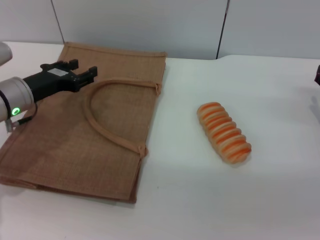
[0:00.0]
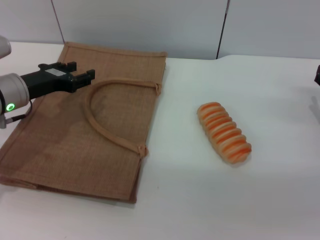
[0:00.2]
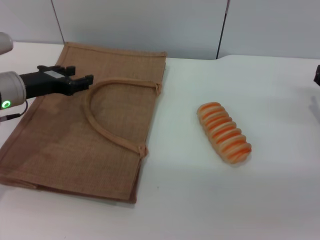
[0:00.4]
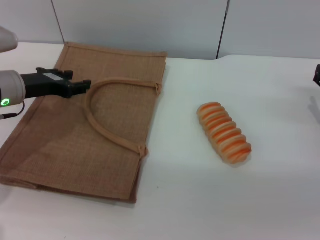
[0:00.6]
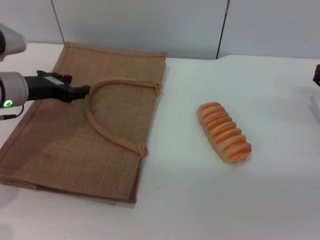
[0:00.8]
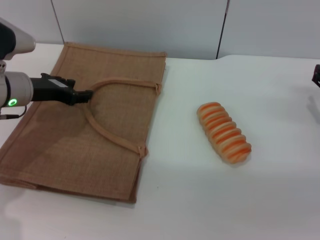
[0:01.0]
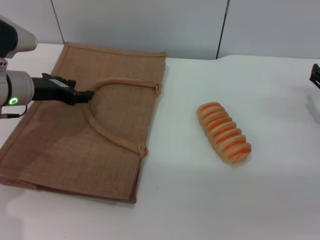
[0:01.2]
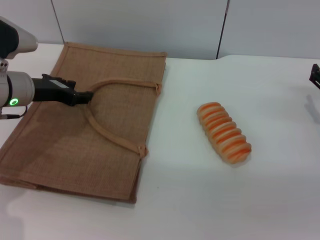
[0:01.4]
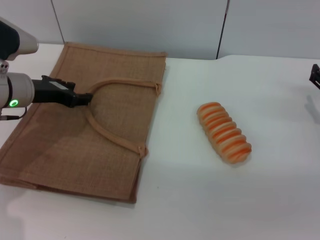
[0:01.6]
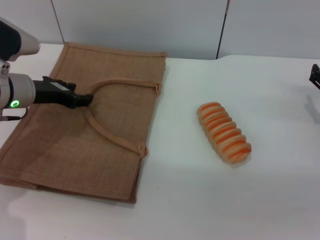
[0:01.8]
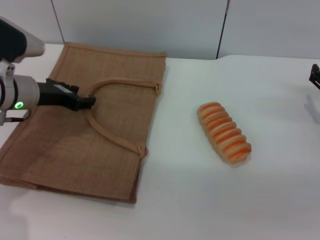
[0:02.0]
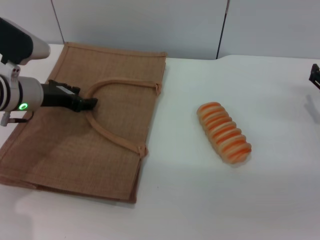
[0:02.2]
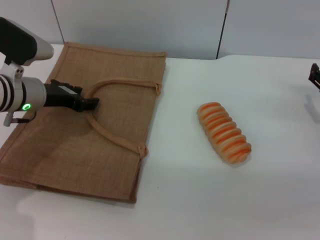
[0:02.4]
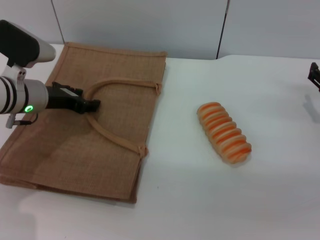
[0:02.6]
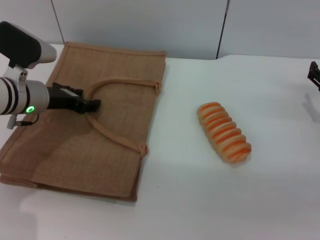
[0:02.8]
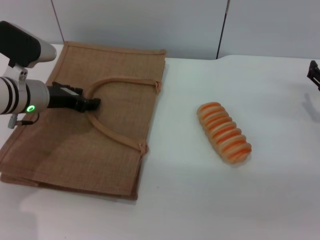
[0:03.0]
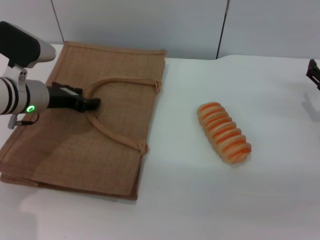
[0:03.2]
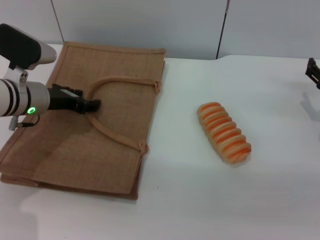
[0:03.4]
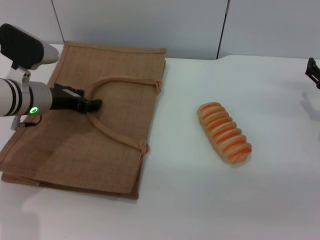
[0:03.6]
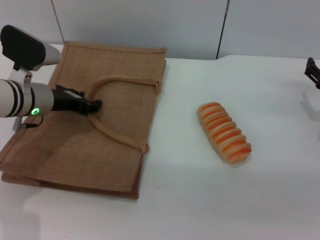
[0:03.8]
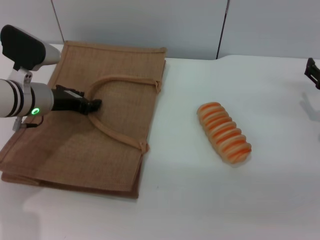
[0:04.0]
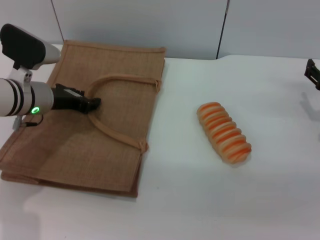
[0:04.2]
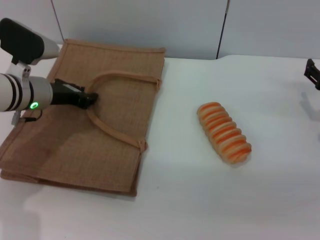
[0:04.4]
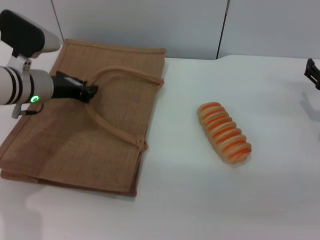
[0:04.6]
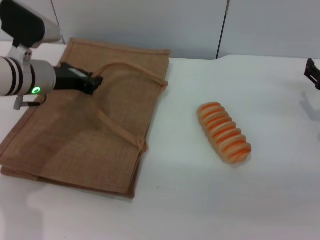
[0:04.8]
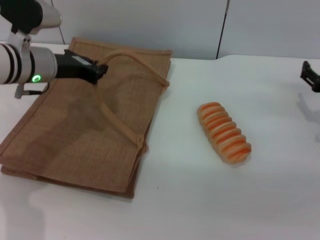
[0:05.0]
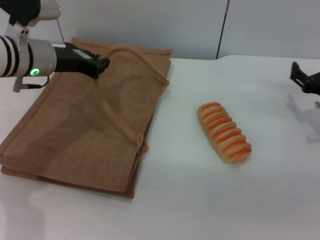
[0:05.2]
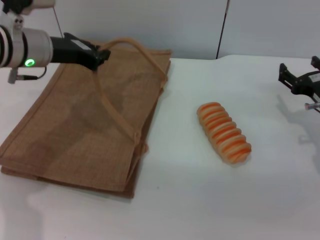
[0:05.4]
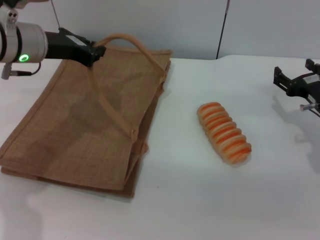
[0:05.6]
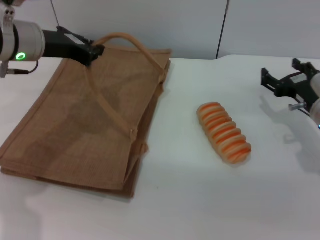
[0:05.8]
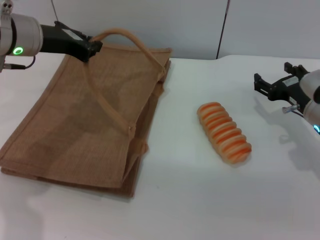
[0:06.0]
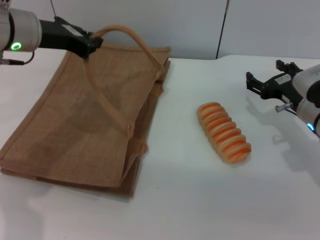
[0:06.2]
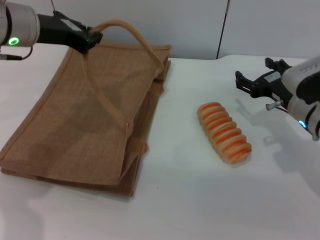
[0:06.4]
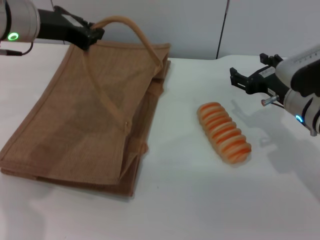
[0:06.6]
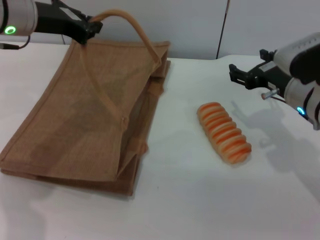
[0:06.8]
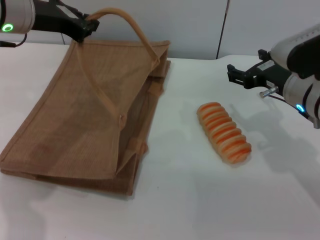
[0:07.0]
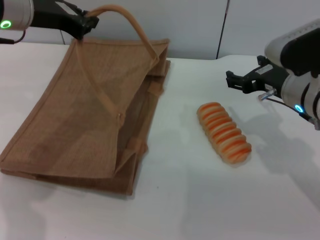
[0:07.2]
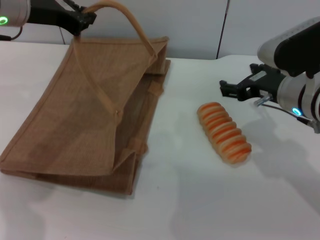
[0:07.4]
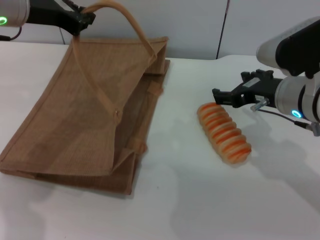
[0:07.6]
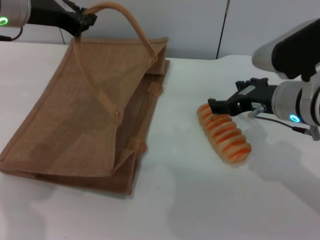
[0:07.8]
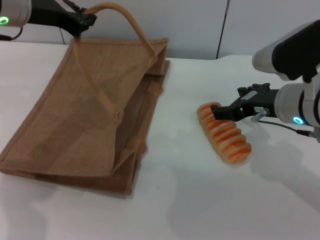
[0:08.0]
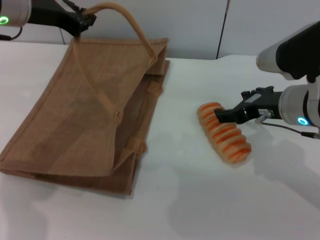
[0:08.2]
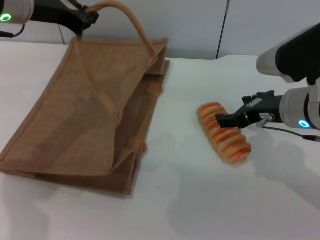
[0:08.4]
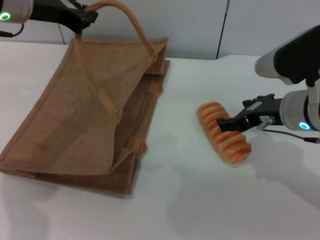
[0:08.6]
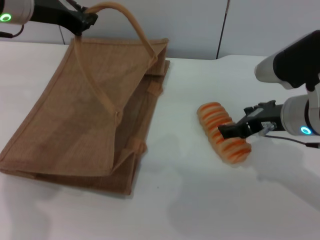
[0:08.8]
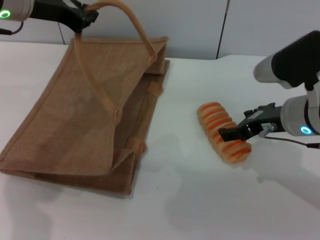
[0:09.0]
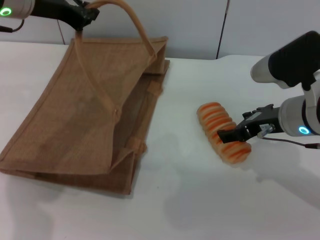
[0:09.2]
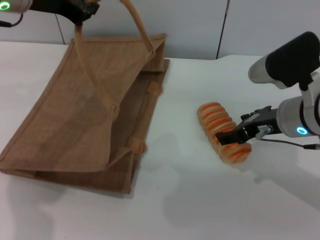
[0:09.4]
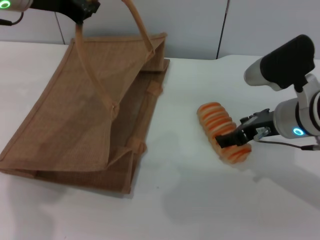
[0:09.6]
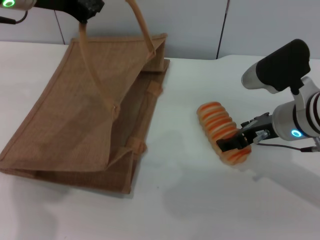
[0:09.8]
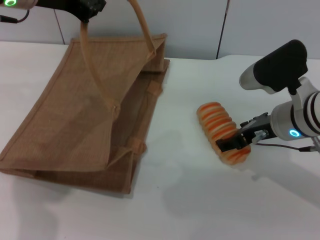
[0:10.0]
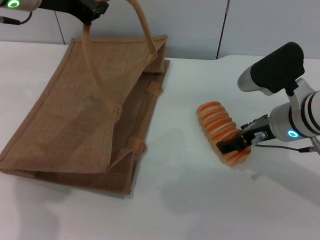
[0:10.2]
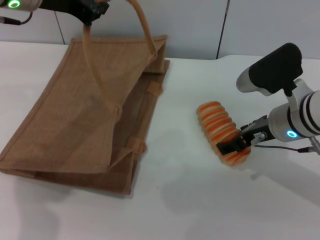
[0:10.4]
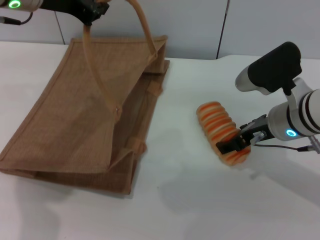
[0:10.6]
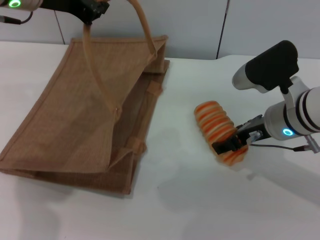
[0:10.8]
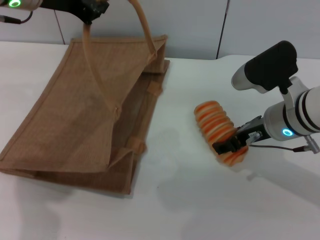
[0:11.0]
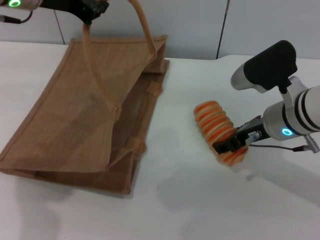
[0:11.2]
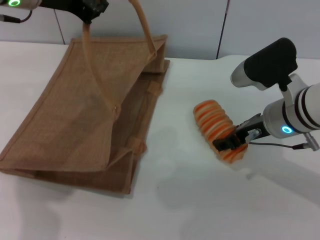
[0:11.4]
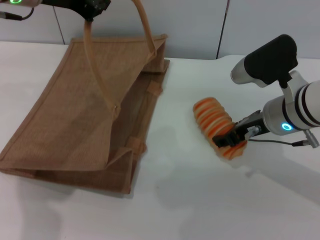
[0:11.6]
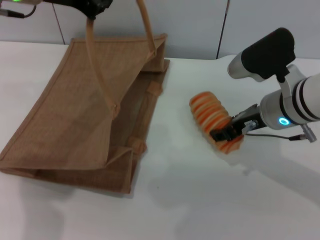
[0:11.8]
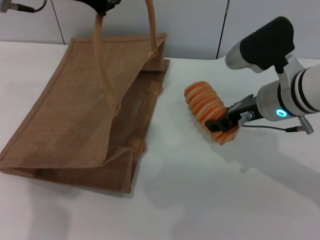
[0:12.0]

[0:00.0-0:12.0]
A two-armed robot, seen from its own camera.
Task of the whole recording: pick up the bread from the table and place it in the brown handbag.
Step, 0:00.0 to 0:04.8: Lift the woven bag with the left gripper to open it.
0:01.6 to 0:03.0: The grippers move only a little.
0:03.0 to 0:04.4: The two grippers keep their place.
0:04.4 to 0:06.0: The left gripper is displaced upward by about 10 cm, and closes up; the right gripper shifts about 5 cm to the left.
0:06.0 to 0:07.6: The right gripper heads upward and to the left, covering about 10 cm.
0:07.6 to 0:09.0: The grippers stay close to where they were, moving slightly.
0:09.0 to 0:10.4: The grippers stay close to where they were, moving slightly.
0:10.4 to 0:12.0: The right gripper closes.

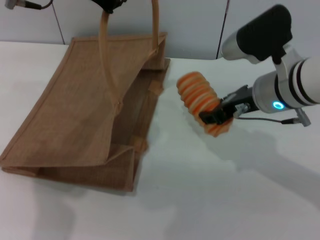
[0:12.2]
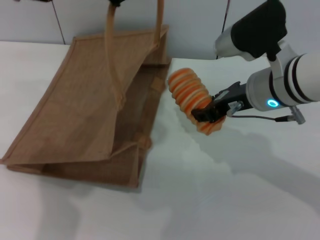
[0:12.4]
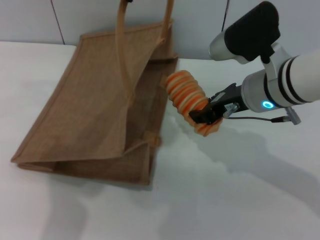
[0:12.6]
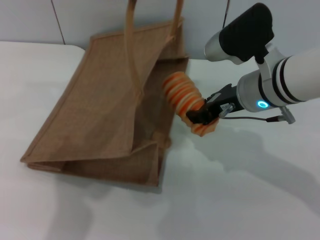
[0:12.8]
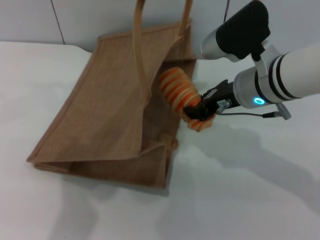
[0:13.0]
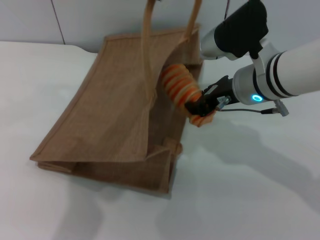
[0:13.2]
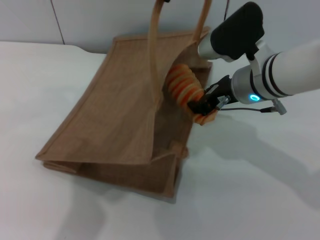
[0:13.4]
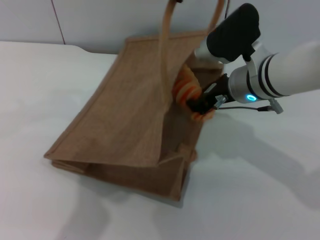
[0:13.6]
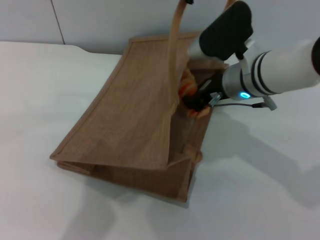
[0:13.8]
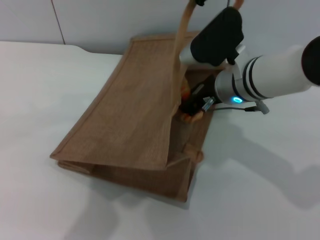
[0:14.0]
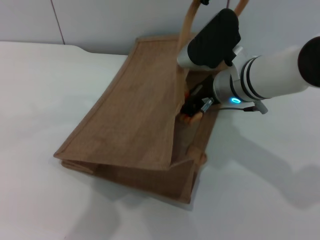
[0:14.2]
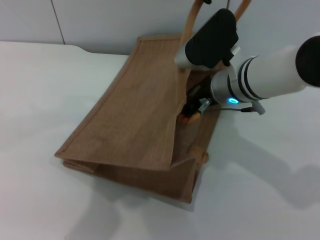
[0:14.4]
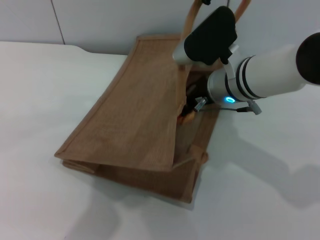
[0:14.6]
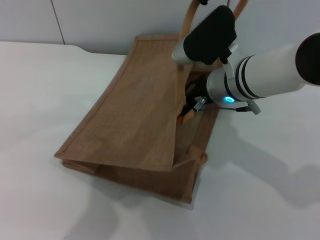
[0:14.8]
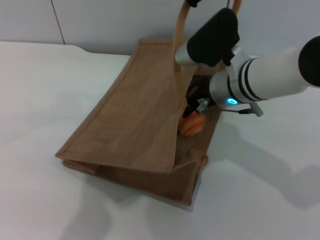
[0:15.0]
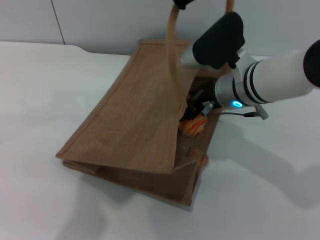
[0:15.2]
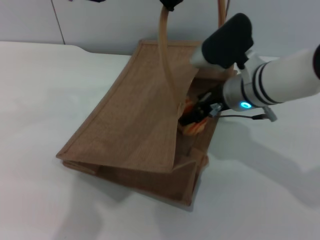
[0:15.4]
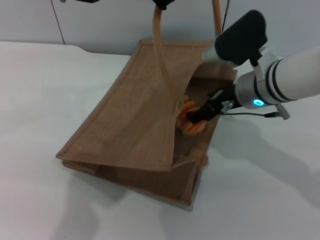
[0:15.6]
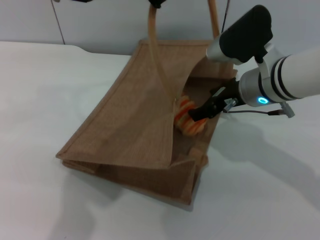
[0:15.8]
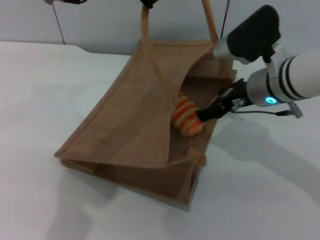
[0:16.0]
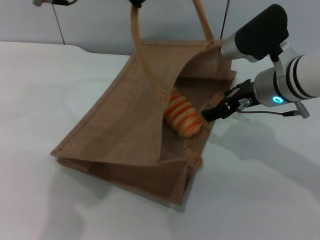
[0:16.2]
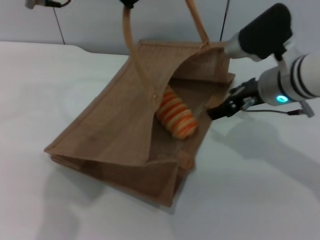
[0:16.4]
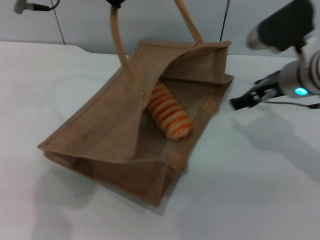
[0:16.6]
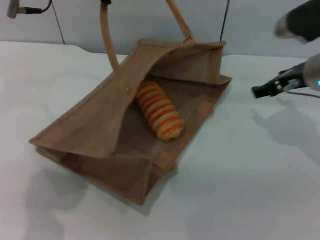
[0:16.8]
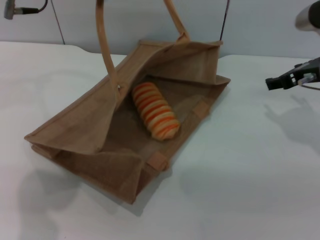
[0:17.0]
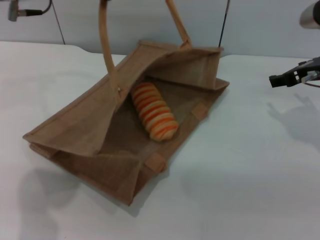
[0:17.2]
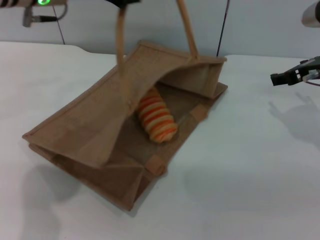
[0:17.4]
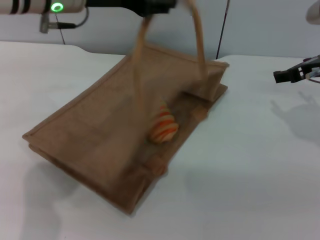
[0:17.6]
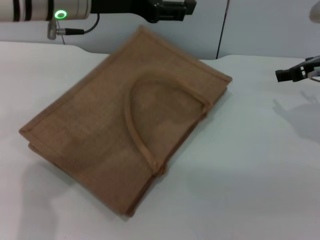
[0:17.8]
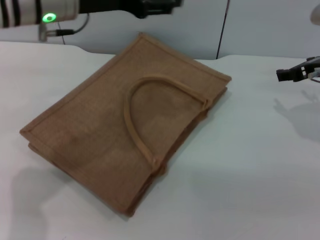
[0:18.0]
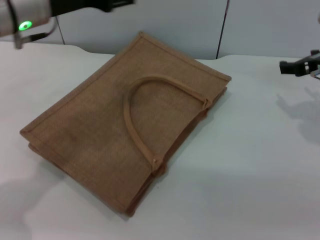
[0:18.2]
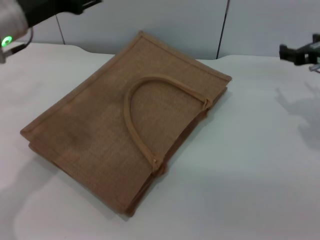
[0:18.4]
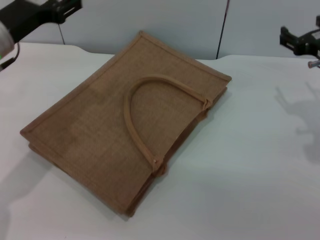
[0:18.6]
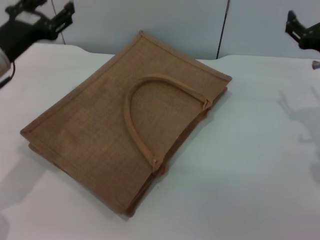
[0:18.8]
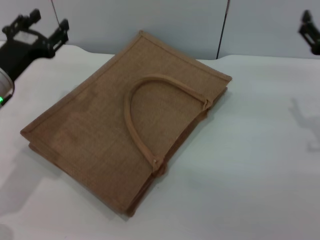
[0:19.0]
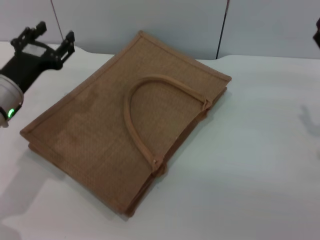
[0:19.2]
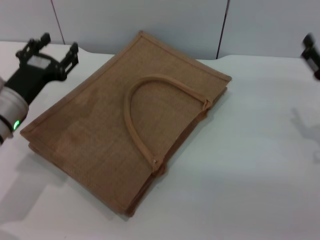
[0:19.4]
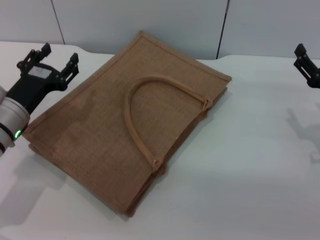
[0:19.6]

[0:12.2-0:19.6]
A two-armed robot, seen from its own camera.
Task of the whole recording: pick up the bread from the table and place it in the brown handbag.
Step, 0:12.4 to 0:16.2: Place the bread into the woven bag with the right gripper.
Step, 0:16.6 to 0:17.8: Lower the woven bag with the left gripper to close it.
0:12.2 to 0:13.6: The left gripper travels to the right by some 10 cm.
0:13.6 to 0:15.2: The right gripper opens.
0:15.2 to 0:16.6: The right gripper heads to the right, covering roughly 10 cm; the left gripper travels to the left by some 10 cm.
0:16.6 to 0:18.2: The right gripper goes approximately 10 cm to the right. Meanwhile the left gripper heads downward, covering some 5 cm, and opens its fingers.
0:18.2 to 0:19.6: The left gripper heads downward, covering roughly 15 cm, while the right gripper moves downward and backward, approximately 10 cm.

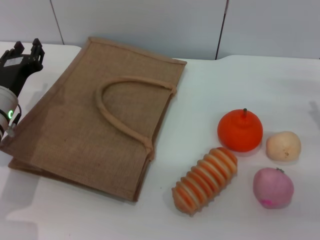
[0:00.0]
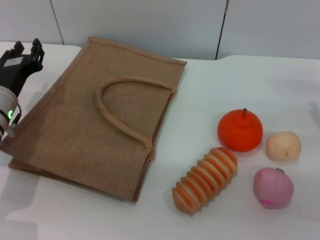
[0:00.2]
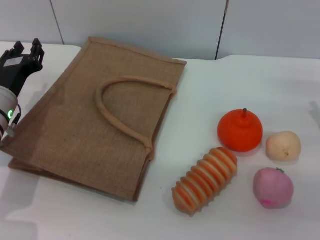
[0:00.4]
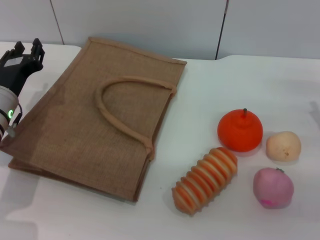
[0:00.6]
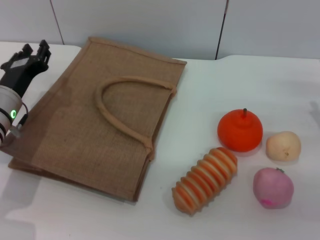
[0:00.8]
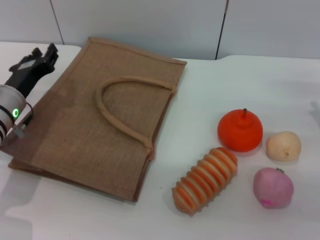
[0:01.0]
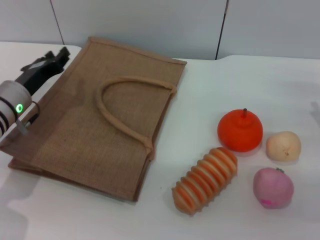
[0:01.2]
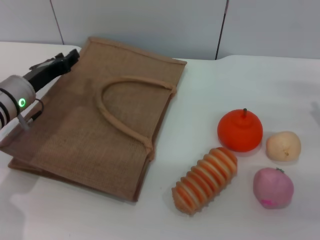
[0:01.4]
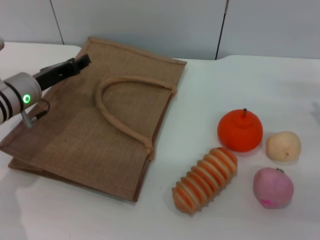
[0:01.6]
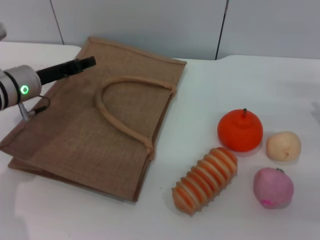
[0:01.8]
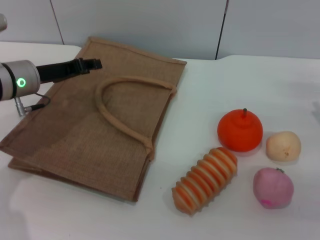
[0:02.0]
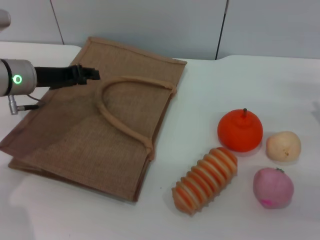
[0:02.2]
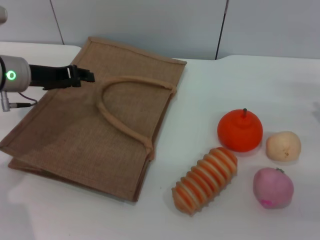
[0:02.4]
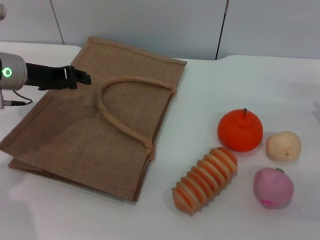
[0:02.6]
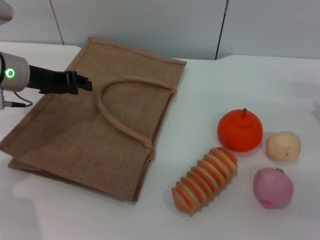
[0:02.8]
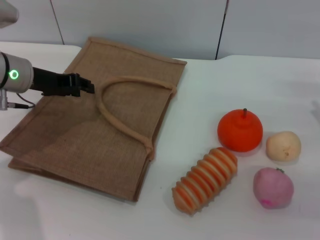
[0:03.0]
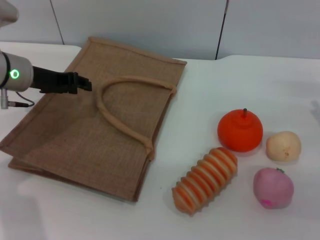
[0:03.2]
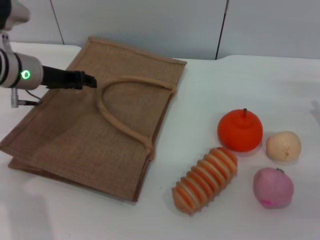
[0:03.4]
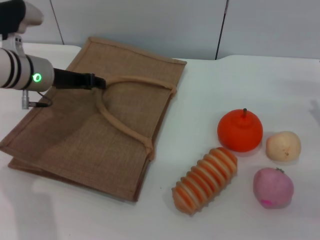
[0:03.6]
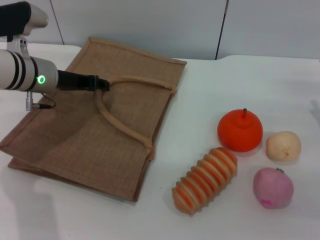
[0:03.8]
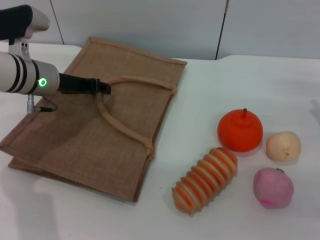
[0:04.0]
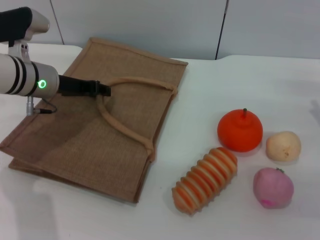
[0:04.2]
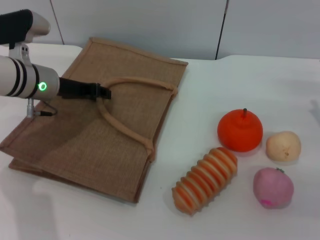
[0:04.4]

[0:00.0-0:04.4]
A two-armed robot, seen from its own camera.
Task of the whole recording: pick up the orange from the table and place it in the brown handbag.
0:01.4 to 0:03.0: The left gripper is displaced upward by roughly 5 cm.
0:03.0 to 0:04.4: The grippers move only a little.
